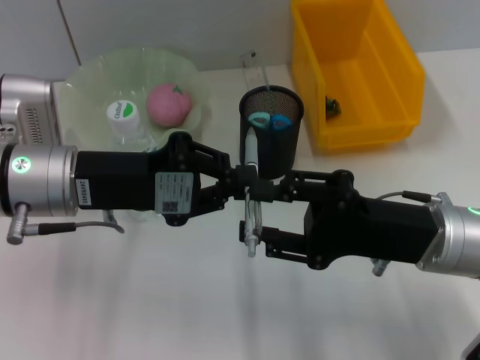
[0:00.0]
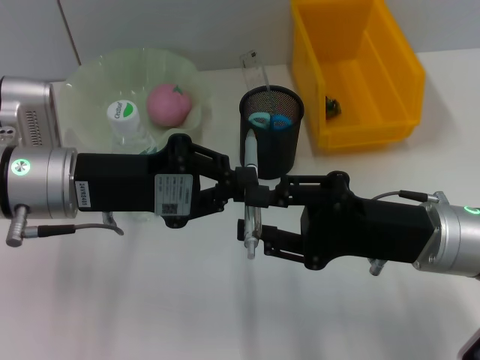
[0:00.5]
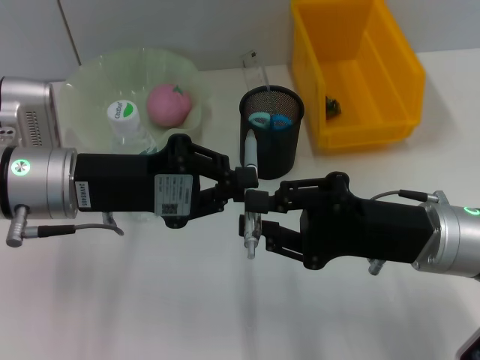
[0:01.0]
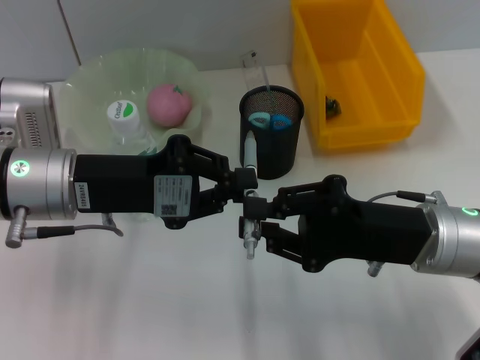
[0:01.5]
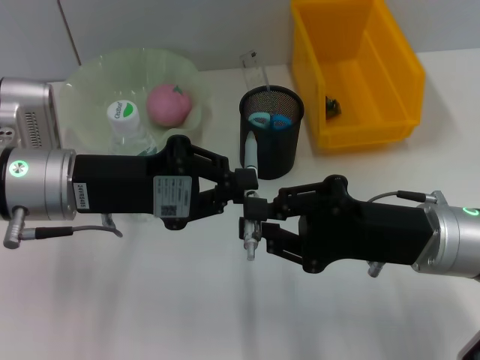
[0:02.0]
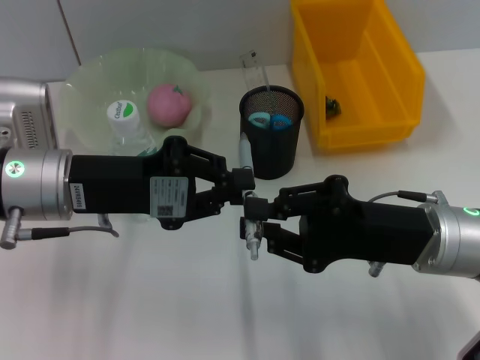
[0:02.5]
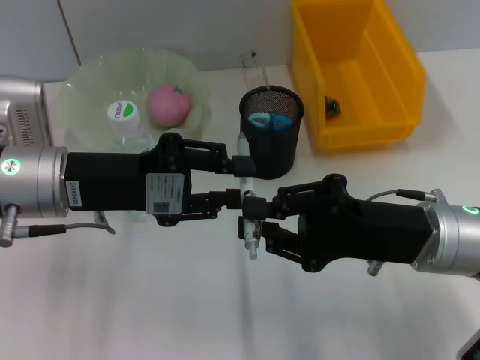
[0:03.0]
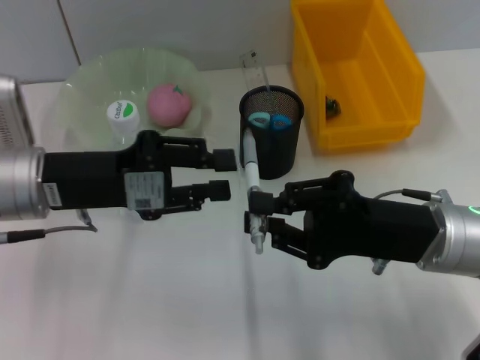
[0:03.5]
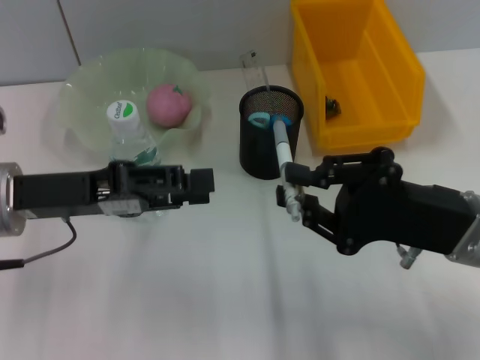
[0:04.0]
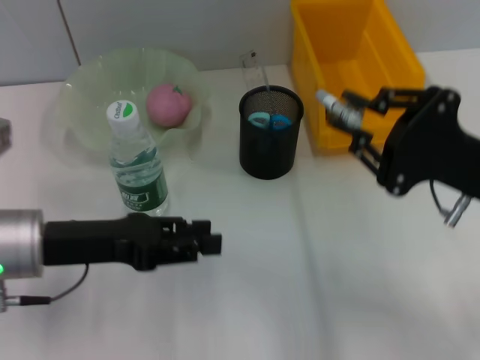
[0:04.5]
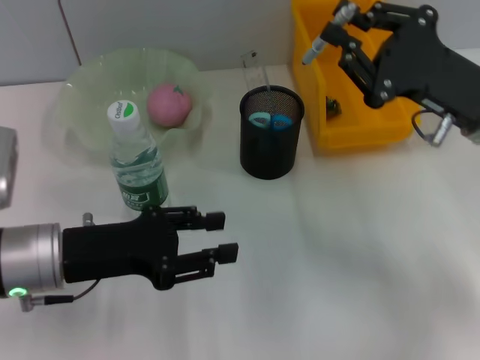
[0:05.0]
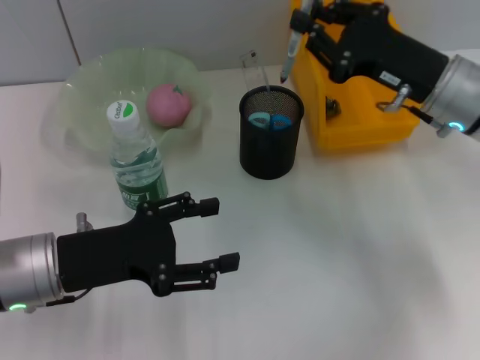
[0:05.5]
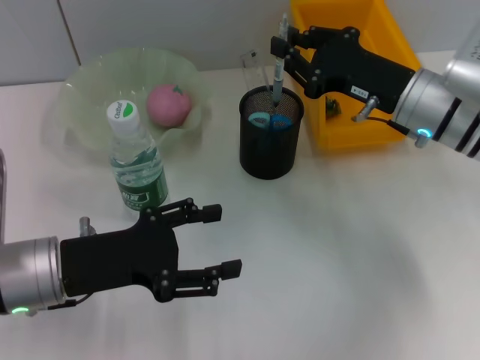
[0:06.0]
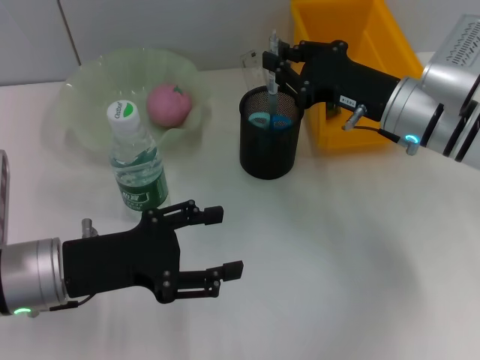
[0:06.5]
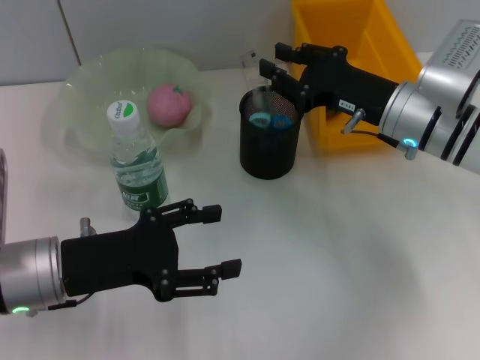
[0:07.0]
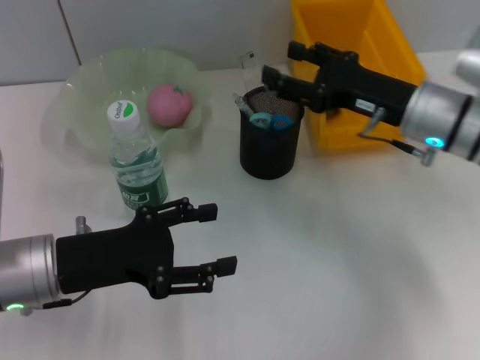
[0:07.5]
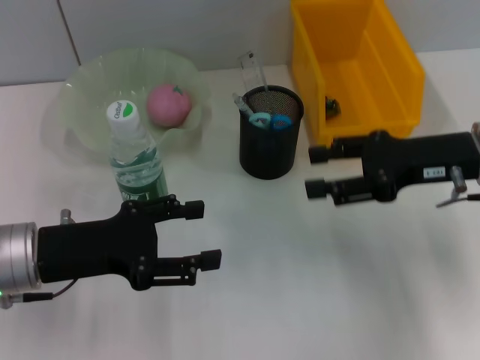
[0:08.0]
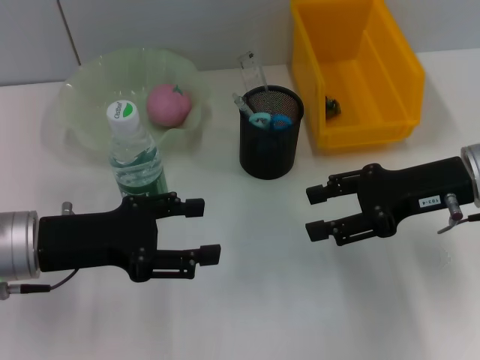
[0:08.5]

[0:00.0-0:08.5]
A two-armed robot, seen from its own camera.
Step, 0:00.0 to 0:03.5: Pass the gray spring-action pen from the left hand to the right hand.
Step, 0:04.0 to 0:07.5: Place the gray spring-action pen into the pen holder with the right hand.
0:00.0 to 0:02.0: The right gripper closes up.
0:02.0 to 0:04.0: The left gripper opens up.
0:04.0 to 0:06.5: The right gripper goes about 10 cm forward; the left gripper is displaced downward by some 5 cm, and opens up.
0:06.5 to 0:08.5: The right gripper moves to the right and backward, about 10 cm, and opens its fingers.

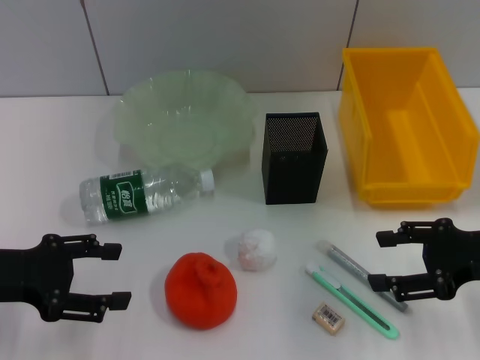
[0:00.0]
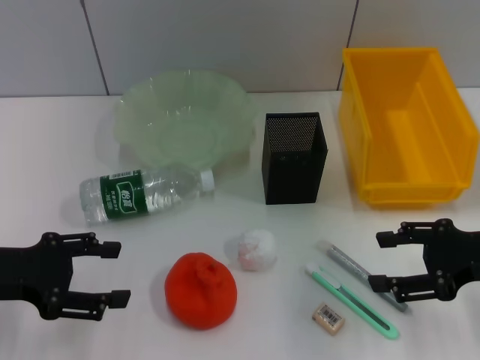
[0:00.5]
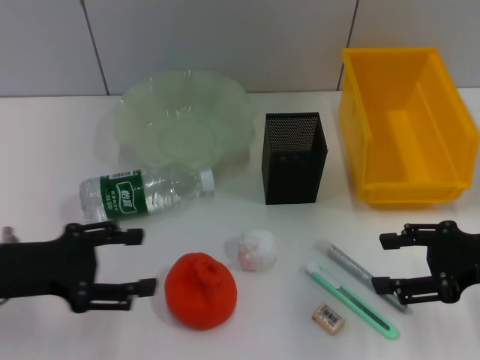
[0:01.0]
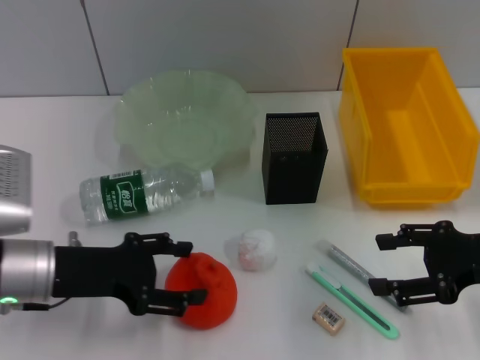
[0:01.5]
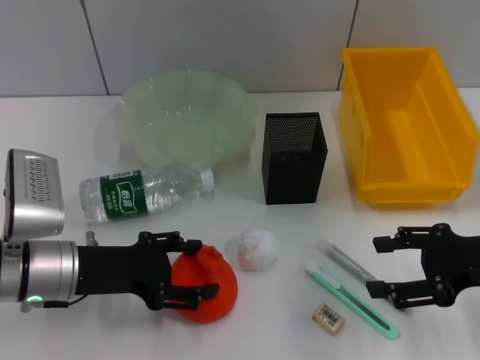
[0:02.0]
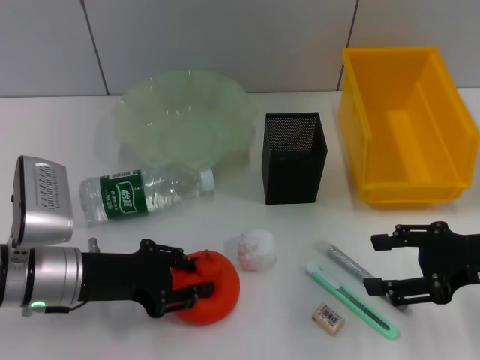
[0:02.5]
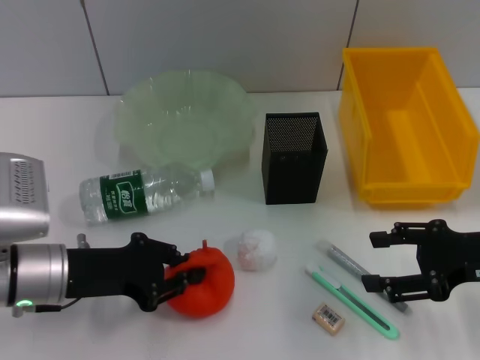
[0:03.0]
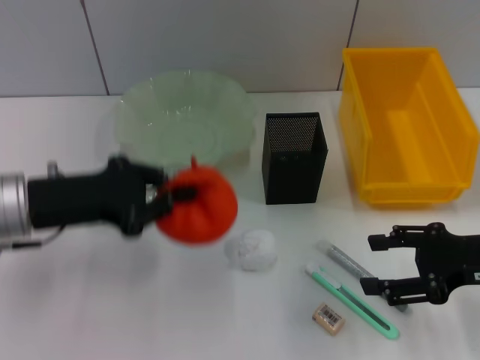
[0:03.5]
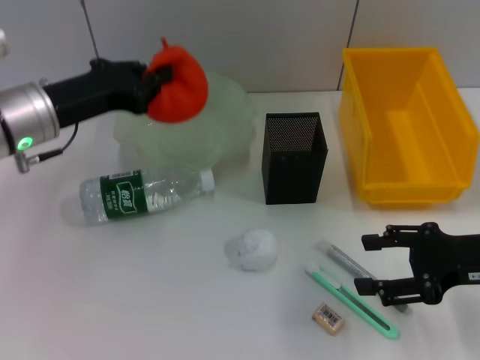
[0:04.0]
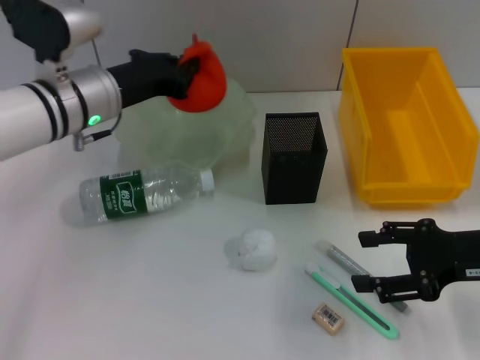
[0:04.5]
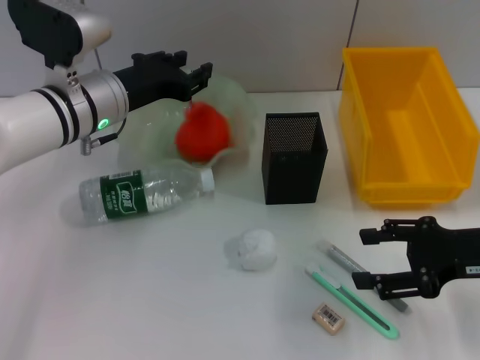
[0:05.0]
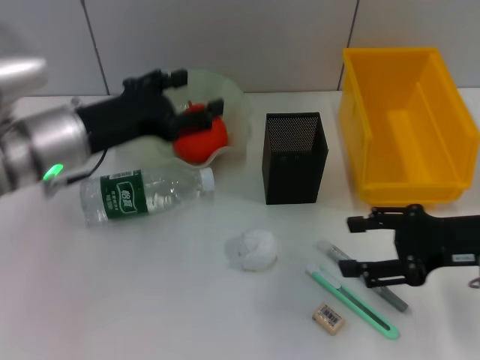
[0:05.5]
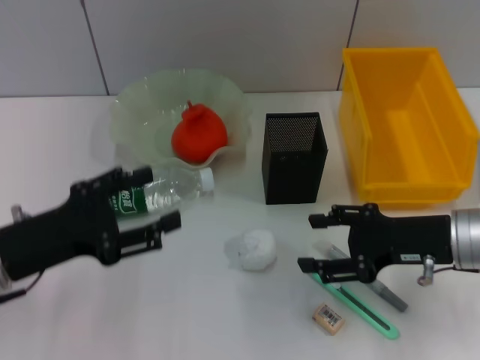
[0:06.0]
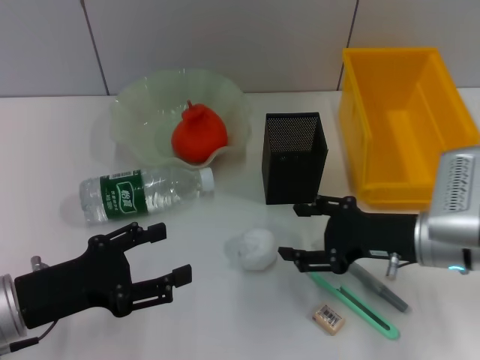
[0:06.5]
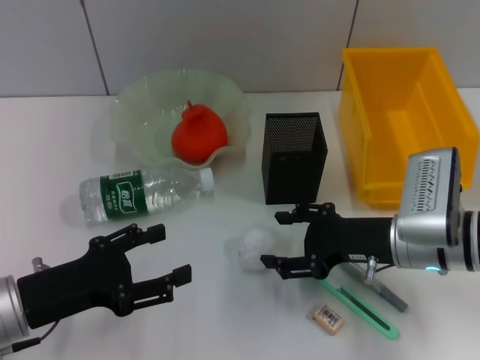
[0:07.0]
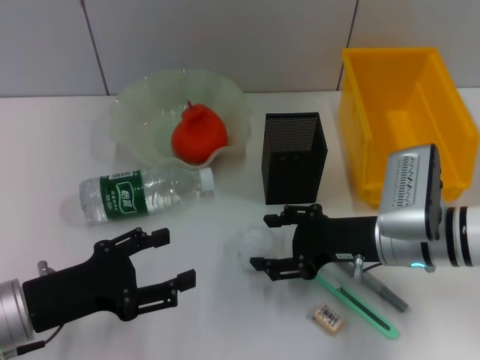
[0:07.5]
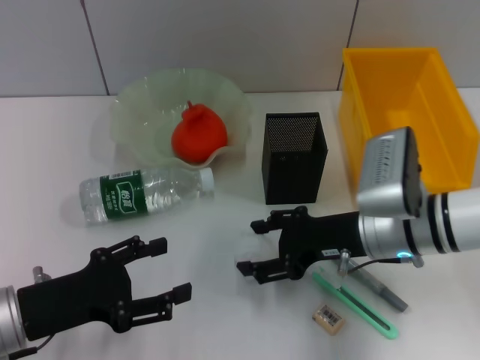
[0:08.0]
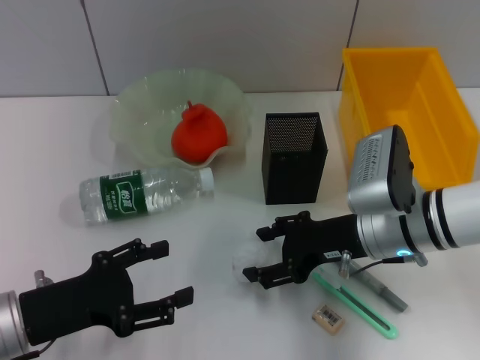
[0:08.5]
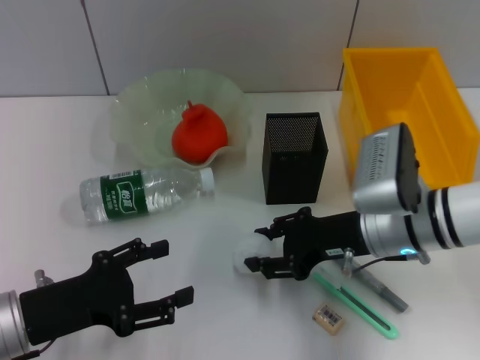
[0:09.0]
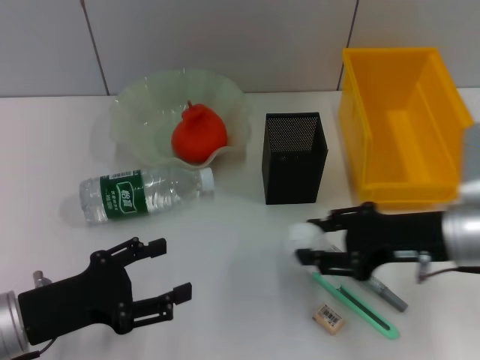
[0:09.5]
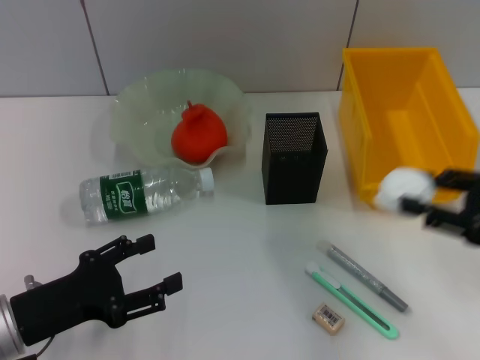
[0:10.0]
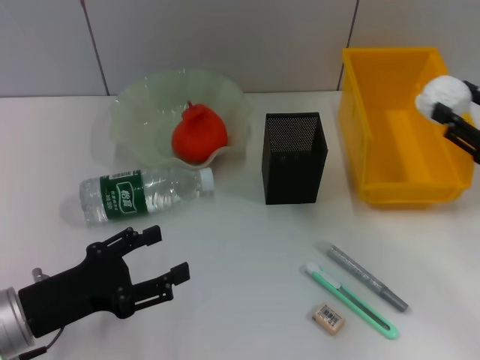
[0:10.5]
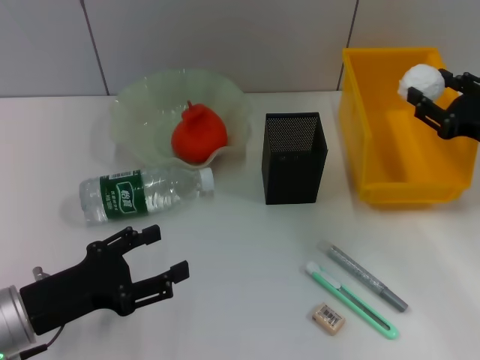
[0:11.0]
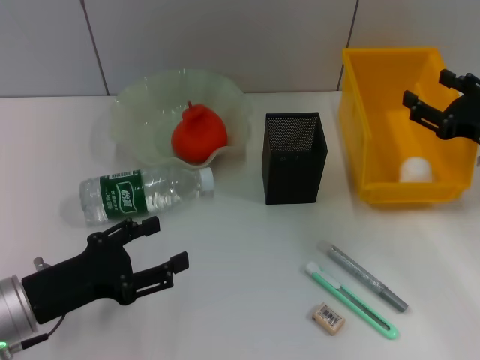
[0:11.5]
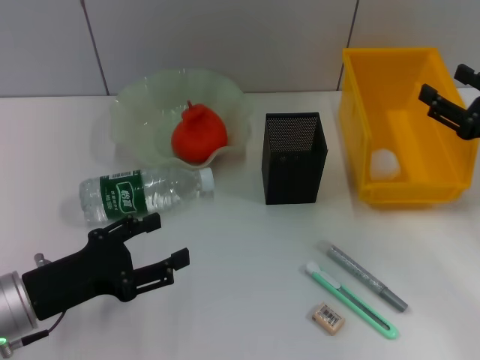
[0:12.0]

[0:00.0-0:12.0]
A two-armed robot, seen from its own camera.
Step, 0:00.0 to 0:02.5: Grab the orange with the left hand.
Step, 0:03.0 to 0:05.0: Place the orange into the fruit bowl with the left hand.
Step, 0:05.5 to 0:08.5: Grab the paper ball with the right hand.
Step, 0:09.0 to 0:11.5: Place the paper ball into the trash can with the right hand.
0:00.0 to 0:02.0: The left gripper heads to the right, covering roughly 10 cm.
0:02.0 to 0:04.0: The left gripper heads forward and upward, covering some 10 cm, and closes its fingers.
0:04.0 to 0:06.0: The right gripper is displaced to the left by some 5 cm, while the left gripper is displaced backward by some 15 cm, and opens up.
0:06.0 to 0:08.0: The right gripper is displaced to the left by roughly 5 cm.
0:08.0 to 0:10.0: The right gripper goes about 20 cm to the right and backward, and closes up.
0:10.0 to 0:12.0: The right gripper travels forward by roughly 5 cm, and opens.

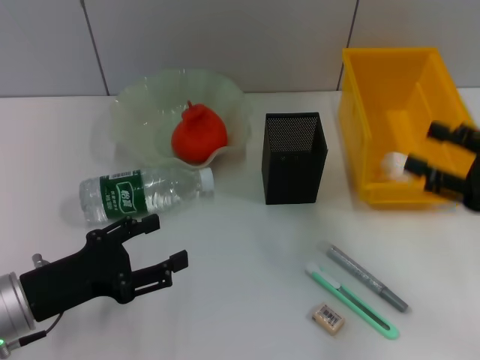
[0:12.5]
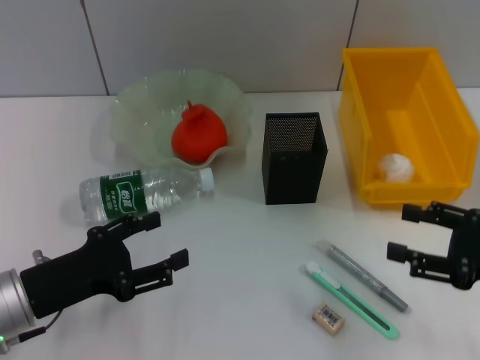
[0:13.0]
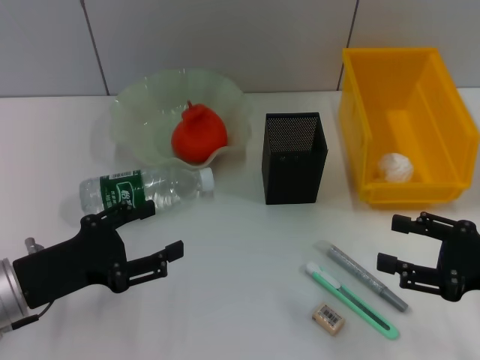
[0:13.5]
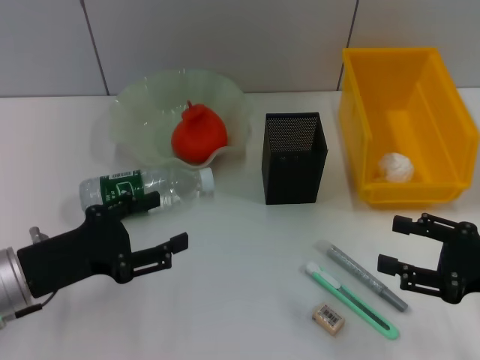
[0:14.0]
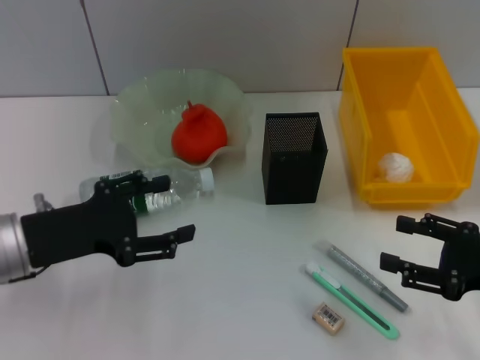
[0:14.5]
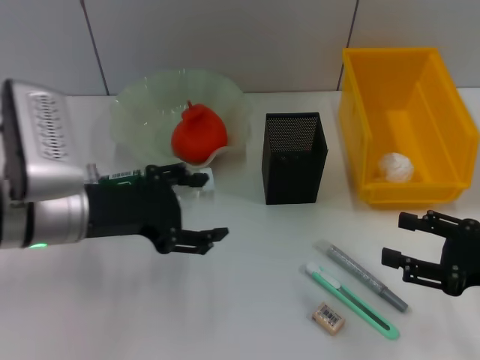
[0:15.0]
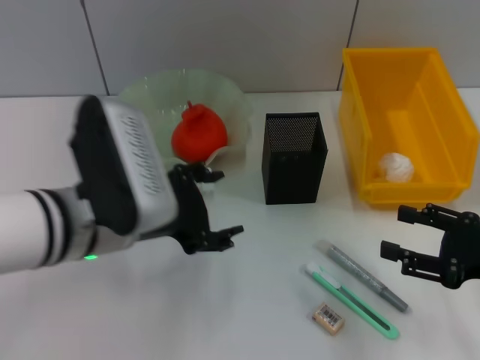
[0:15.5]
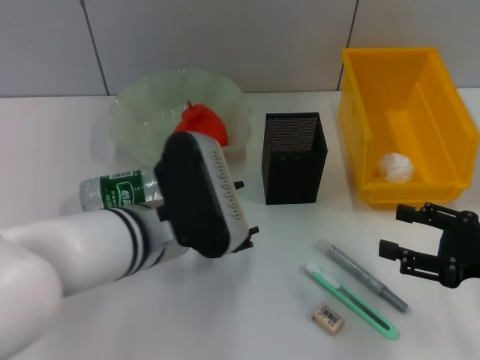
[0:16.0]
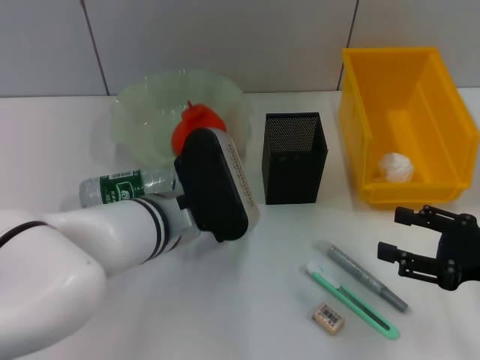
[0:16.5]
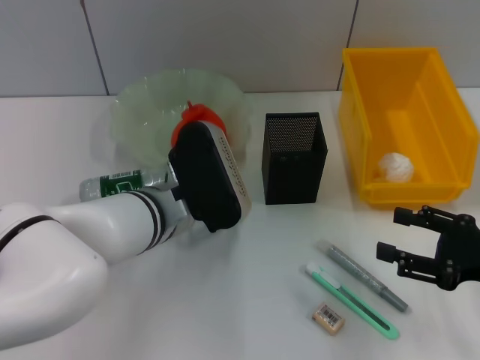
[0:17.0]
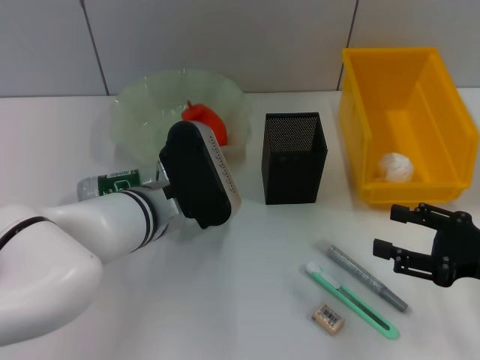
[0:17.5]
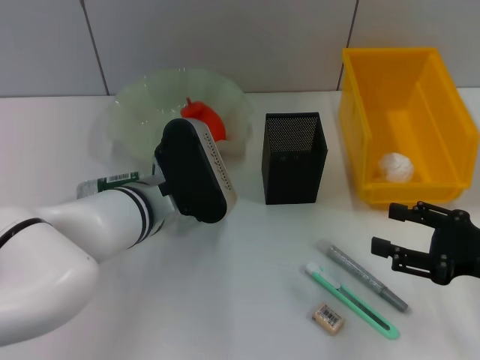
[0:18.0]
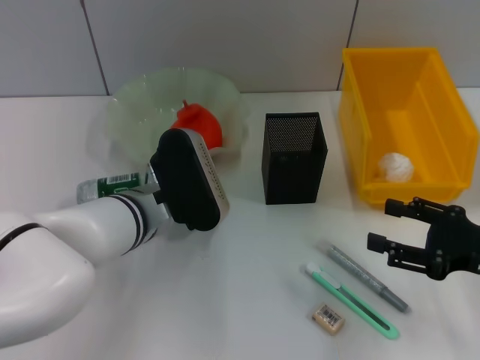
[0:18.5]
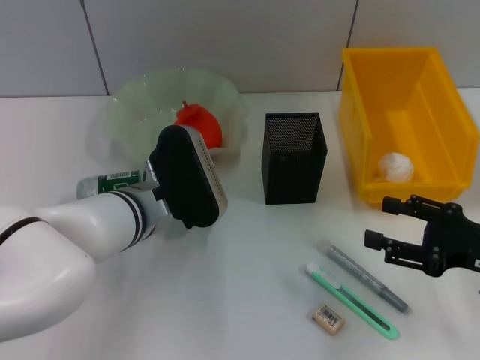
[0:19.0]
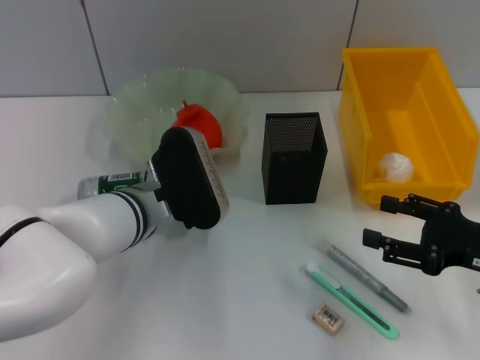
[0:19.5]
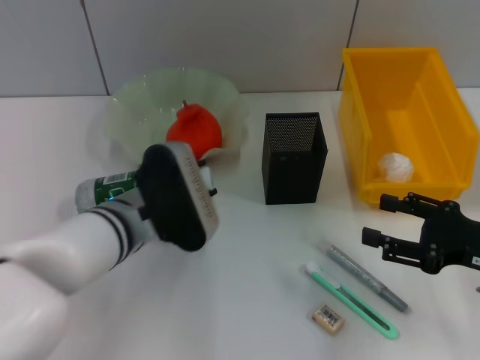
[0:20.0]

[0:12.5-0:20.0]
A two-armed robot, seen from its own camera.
Step, 0:12.5 to 0:19.0: Grab the water bottle with the left hand.
0:12.5 to 0:14.5: The left gripper travels upward by approximately 5 cm. Meanwhile the right gripper shifts by roughly 5 cm.
0:14.5 to 0:16.5: The left gripper moves to the right, some 15 cm.
0:16.5 to 0:20.0: The grippers make only small movements.
